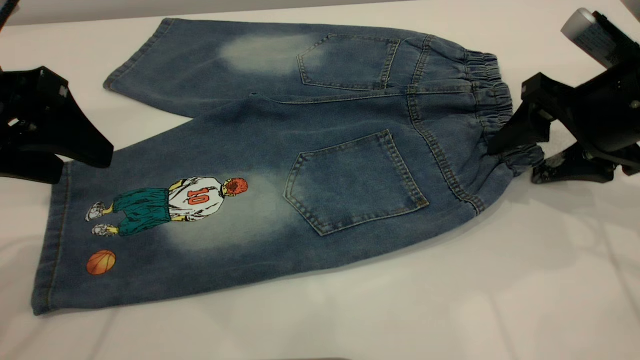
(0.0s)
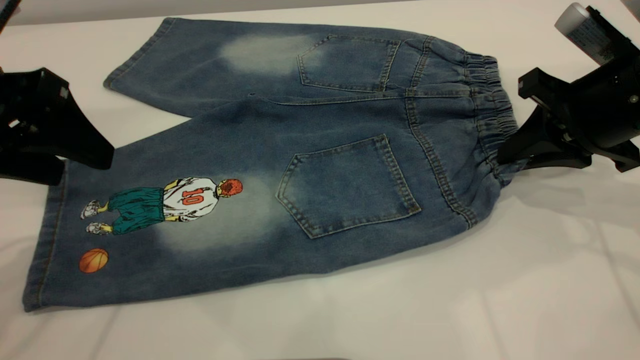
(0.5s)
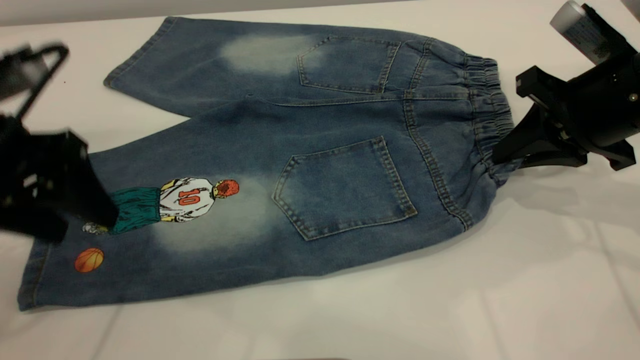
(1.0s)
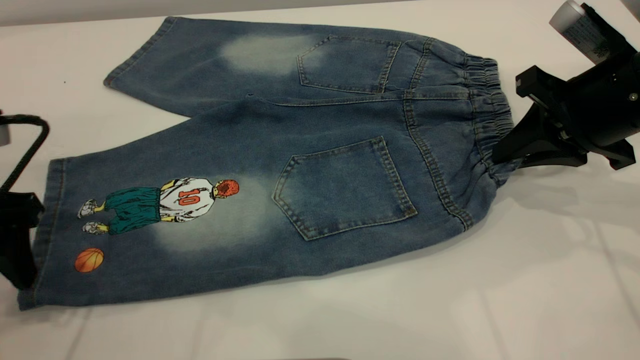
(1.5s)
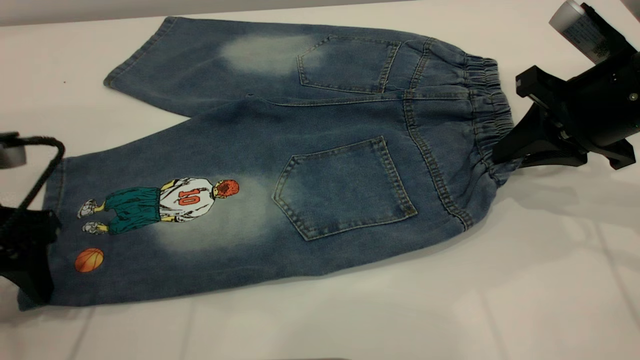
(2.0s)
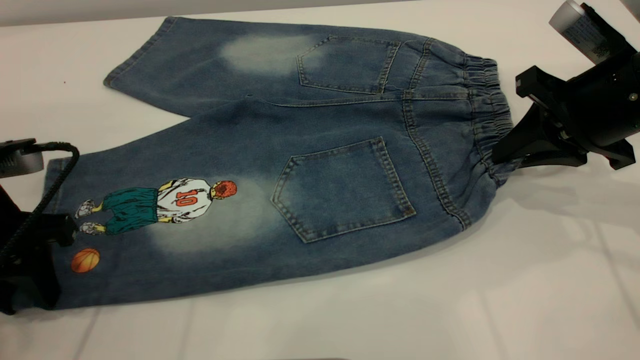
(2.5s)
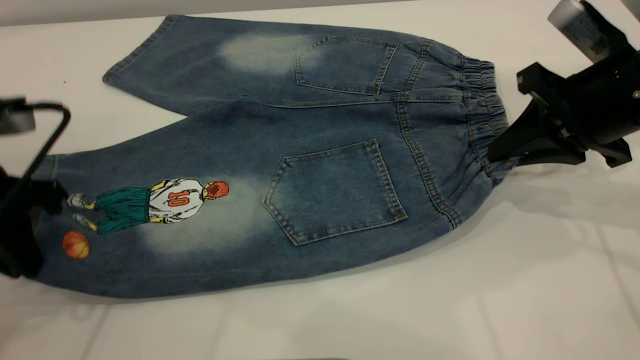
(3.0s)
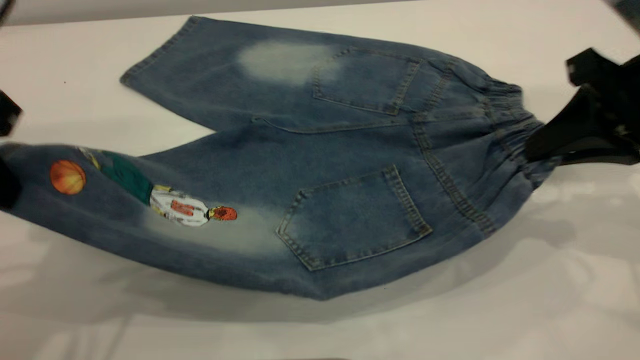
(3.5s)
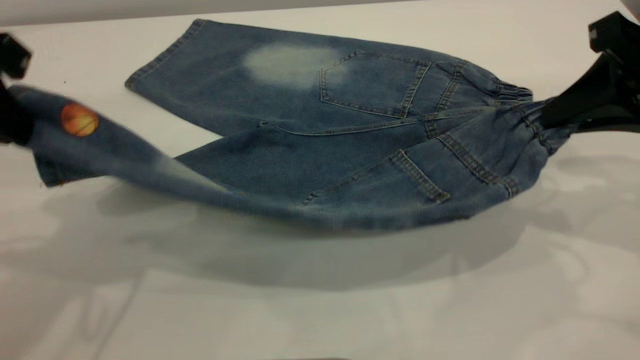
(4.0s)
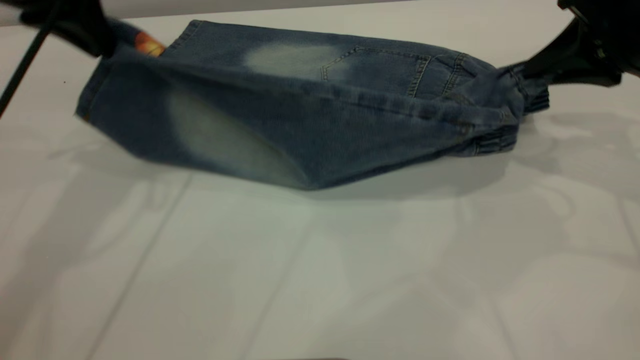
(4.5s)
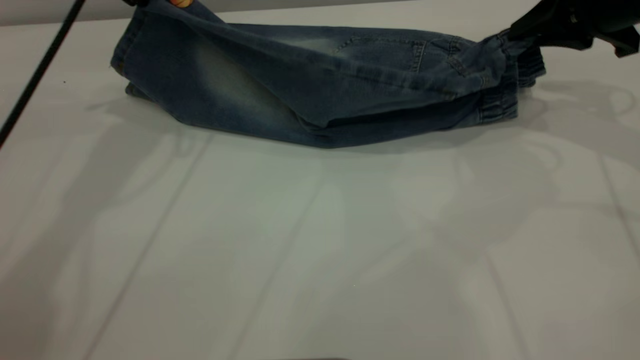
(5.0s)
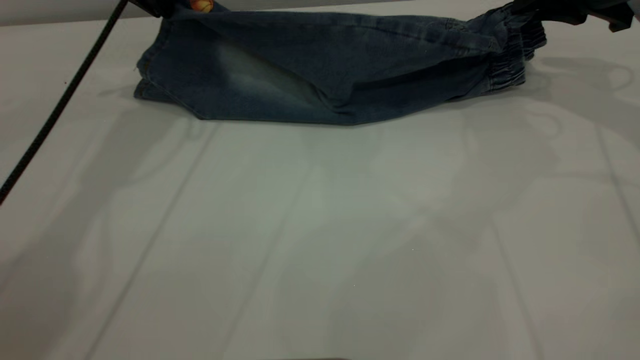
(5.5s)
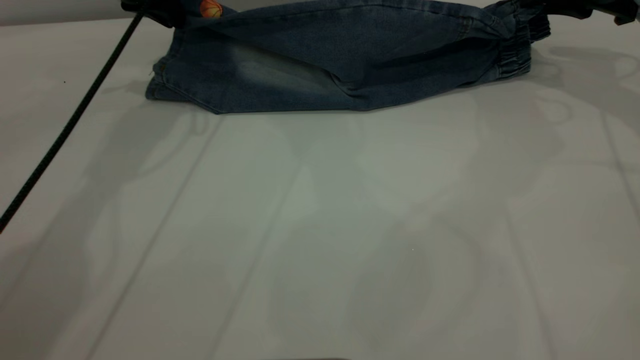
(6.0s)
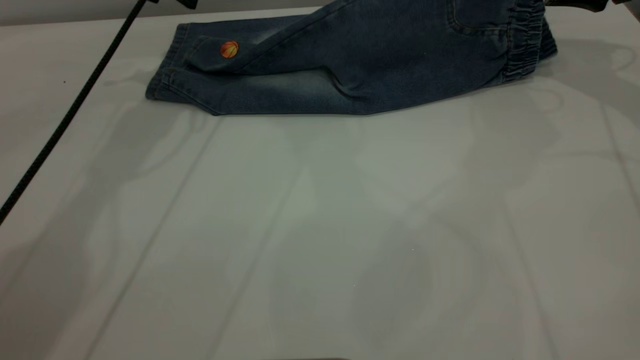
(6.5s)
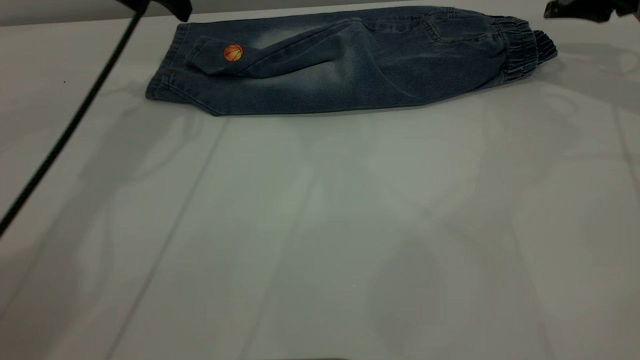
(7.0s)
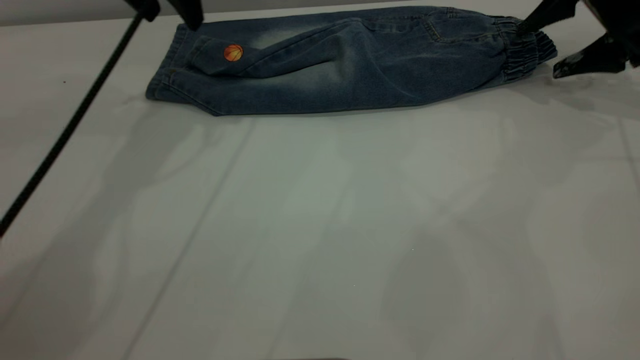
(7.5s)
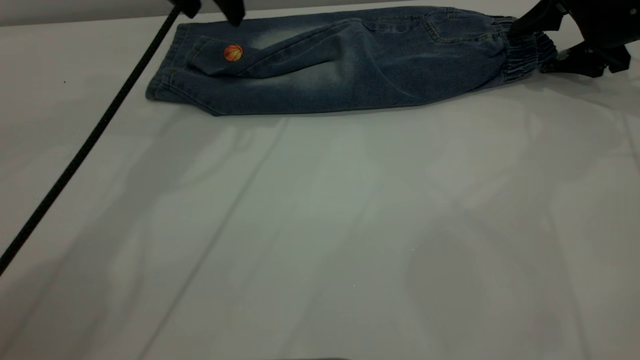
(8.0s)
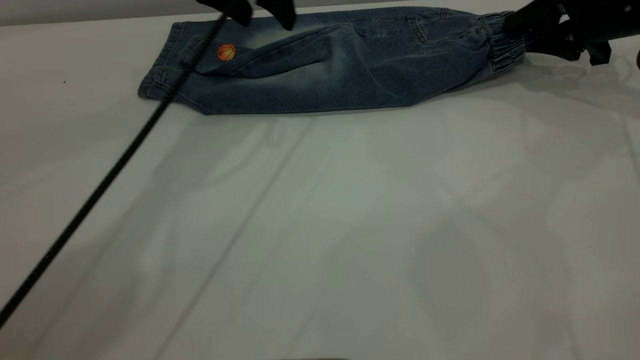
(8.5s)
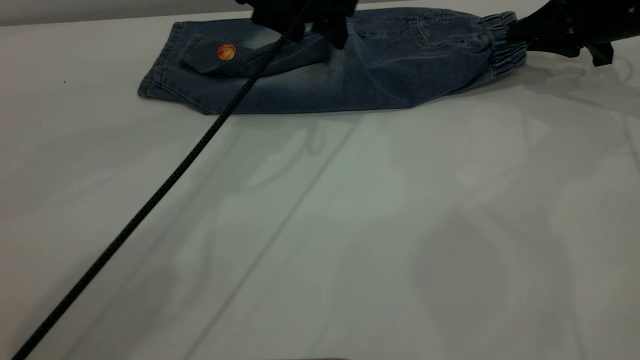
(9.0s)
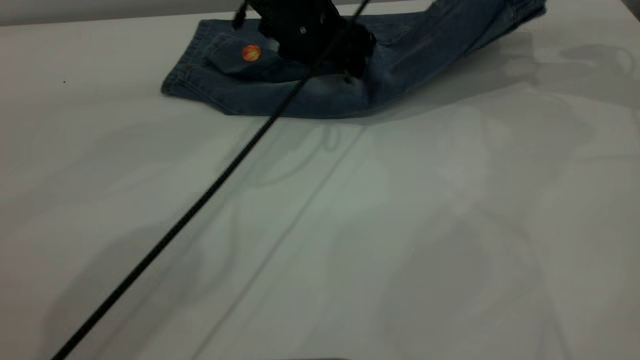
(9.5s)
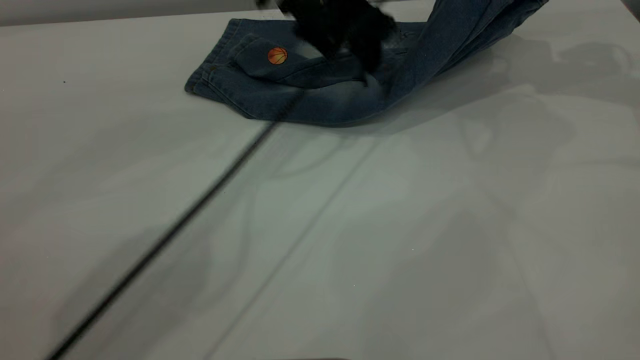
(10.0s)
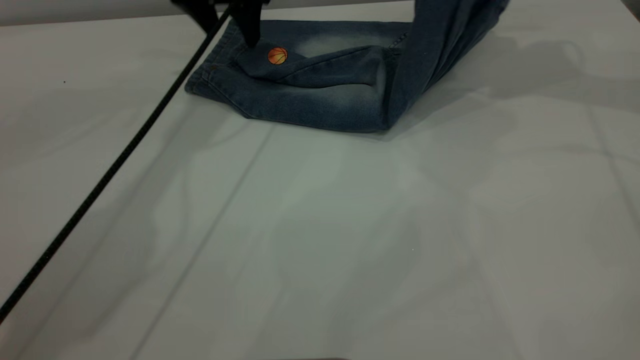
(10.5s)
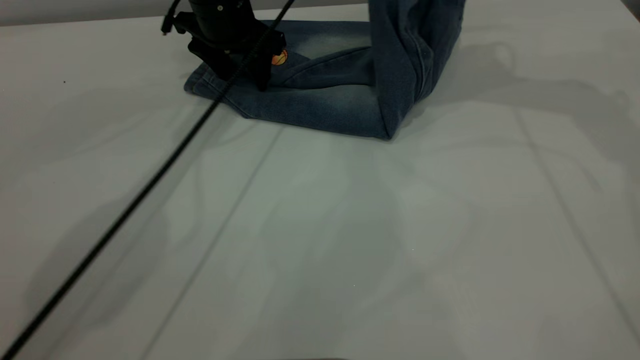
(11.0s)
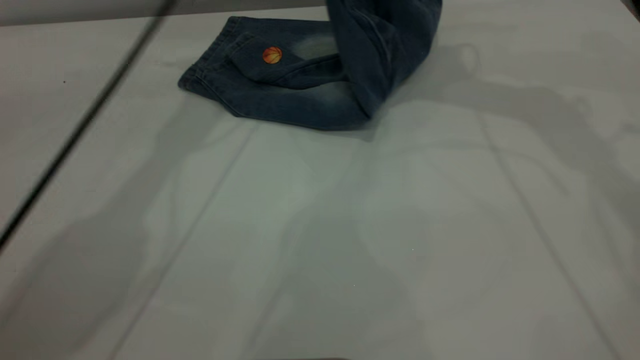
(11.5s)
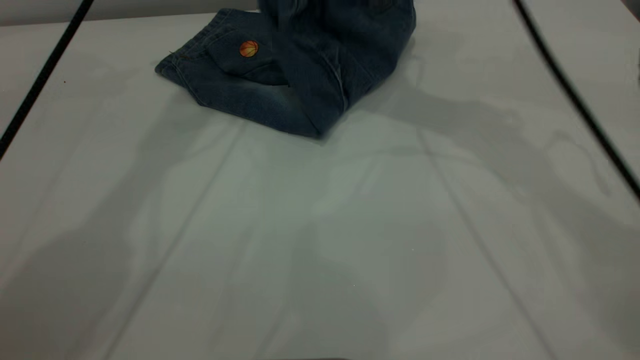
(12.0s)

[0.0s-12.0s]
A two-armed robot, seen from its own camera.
Step, 0.0s to 7.0s: Fold the bottom of the pants upward.
0.0s to 2.0s: The right gripper closes. The left gripper travels downward by approximately 10 cm.
2.0s to 4.0s: The left gripper is displaced upward by approximately 15 cm, and closes. The right gripper shifts approximately 5 cm upward.
4.0s to 6.0s: The two grippers go approximately 20 cm forward.
6.0s to 8.0s: The left gripper moves to the right, some 5 cm, and opens up; the right gripper moves downward, approximately 5 cm, and opens.
8.0s to 10.0s: The left gripper goes approximately 15 cm to the right and downward. The right gripper is displaced upward by about 15 cm, and closes up.
10.0s to 12.0s: The right gripper heads to the left, covering approximately 25 cm, while the left gripper travels upward and to the left by some 20 cm.

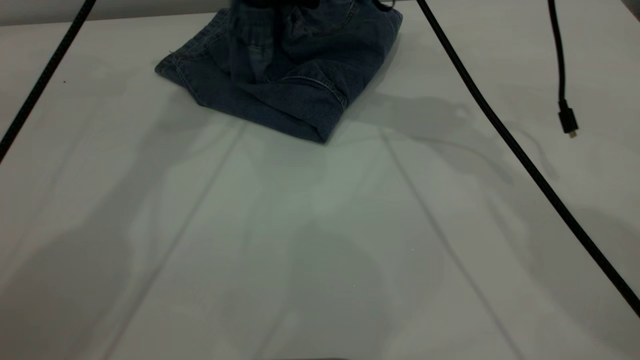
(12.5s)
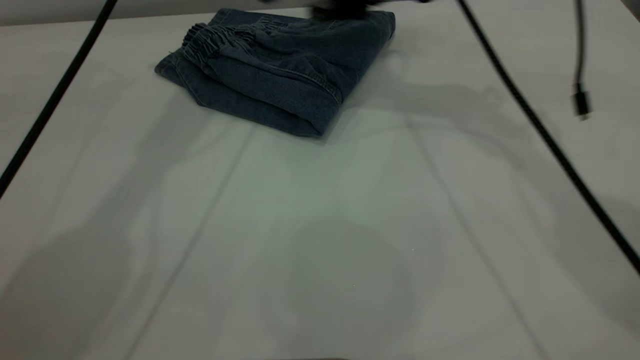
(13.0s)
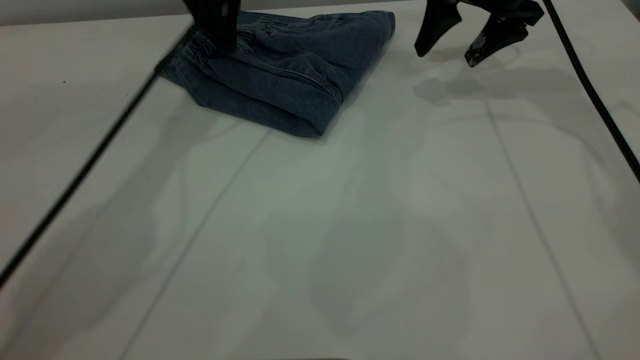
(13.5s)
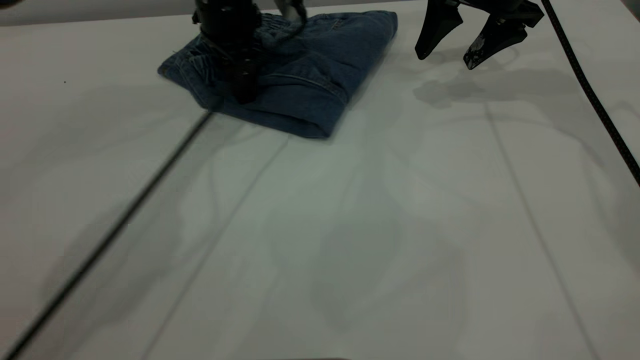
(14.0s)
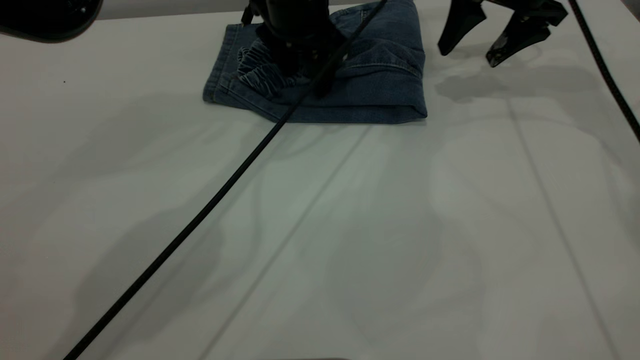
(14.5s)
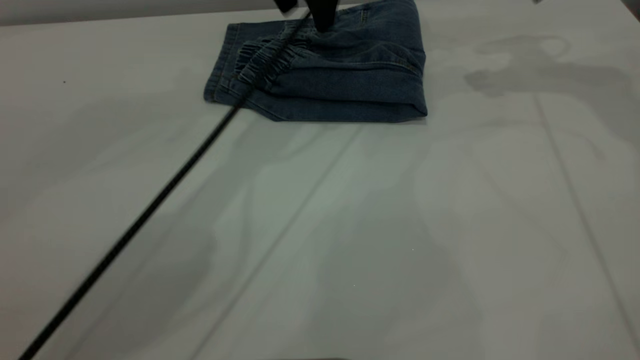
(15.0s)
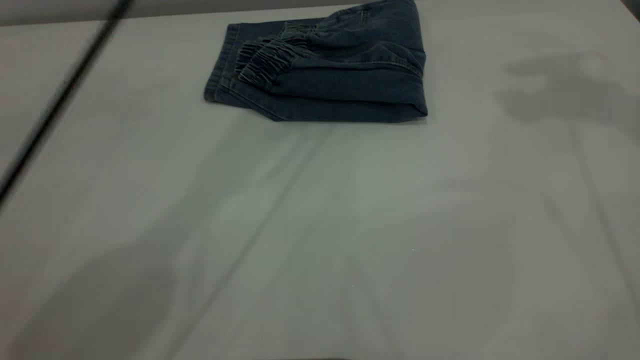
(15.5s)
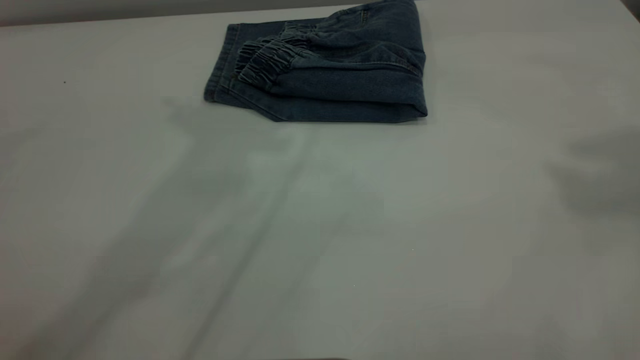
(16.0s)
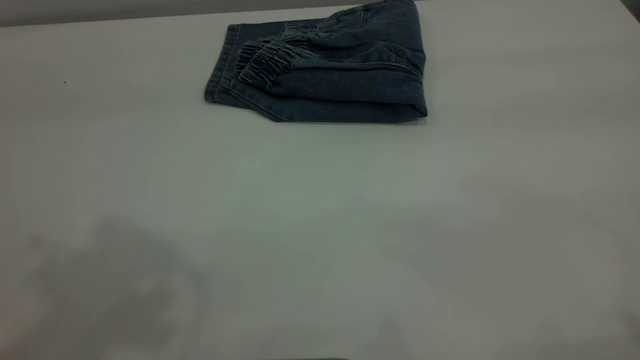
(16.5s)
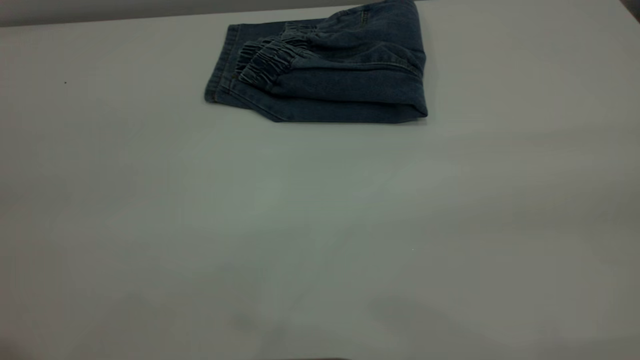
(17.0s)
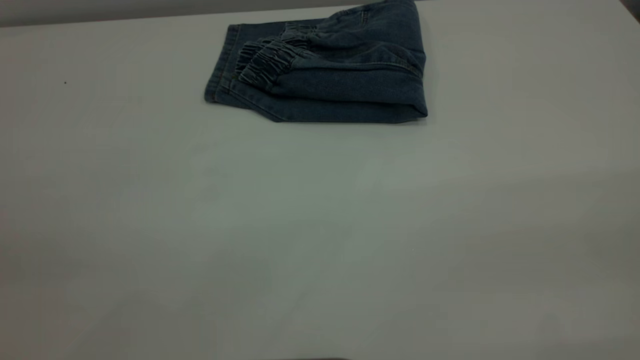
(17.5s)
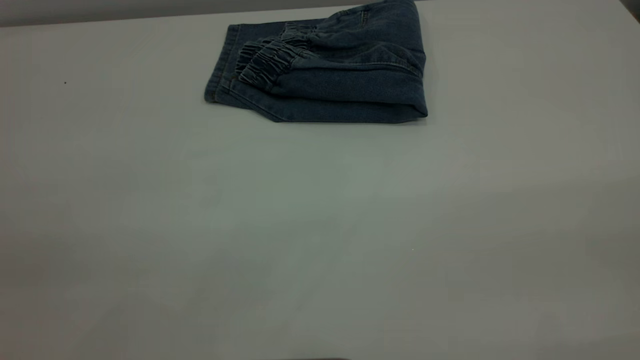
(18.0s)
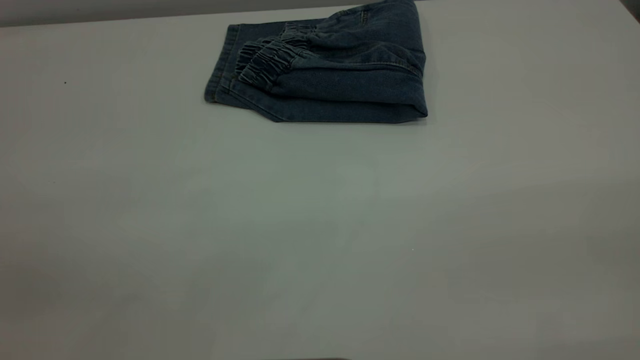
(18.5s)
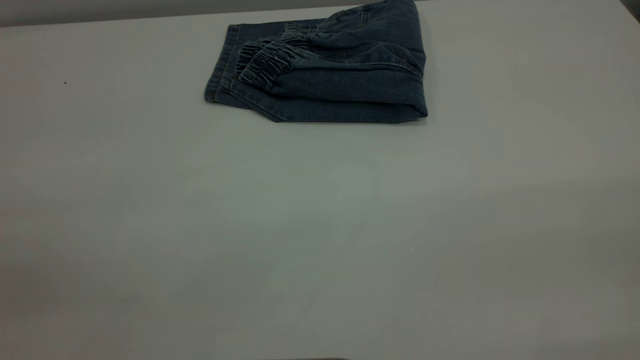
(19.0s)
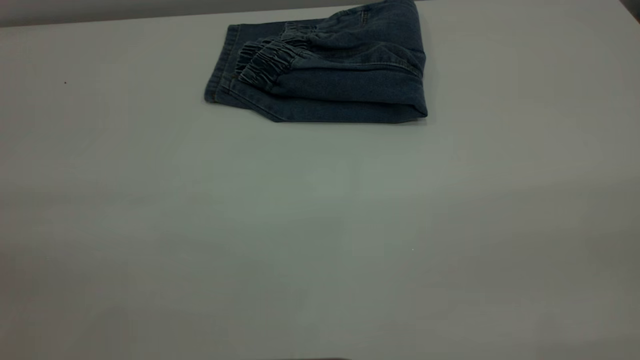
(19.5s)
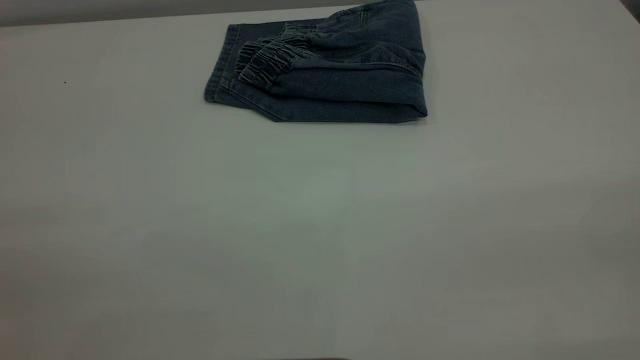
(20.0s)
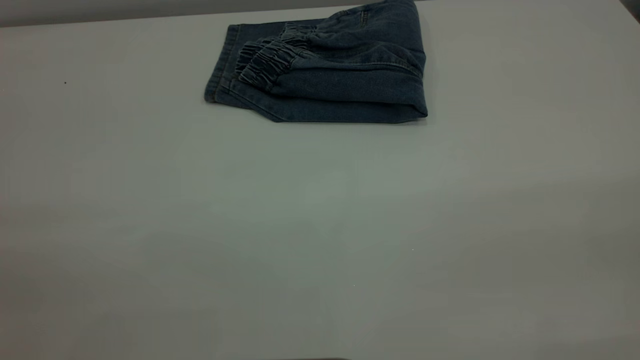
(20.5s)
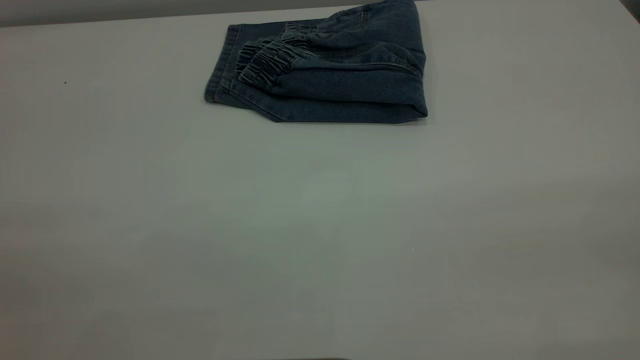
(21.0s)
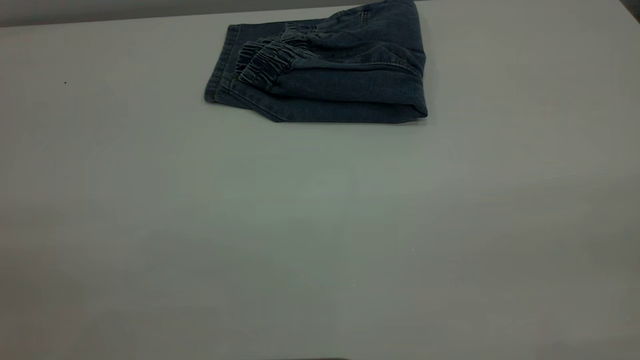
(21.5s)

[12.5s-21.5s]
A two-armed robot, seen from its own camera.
12.5s to 14.5s: The left gripper heads downward and to the right, covering about 20 cm, while the right gripper goes roughly 20 cm to the right, and opens.
14.5s to 17.0s: The left gripper is displaced backward, upward and to the left by approximately 50 cm; the right gripper shifts roughly 50 cm backward and upward.
